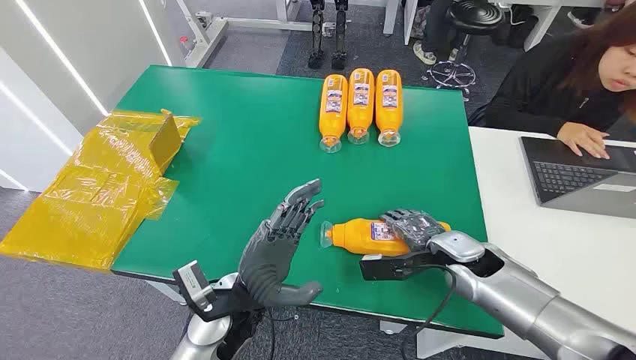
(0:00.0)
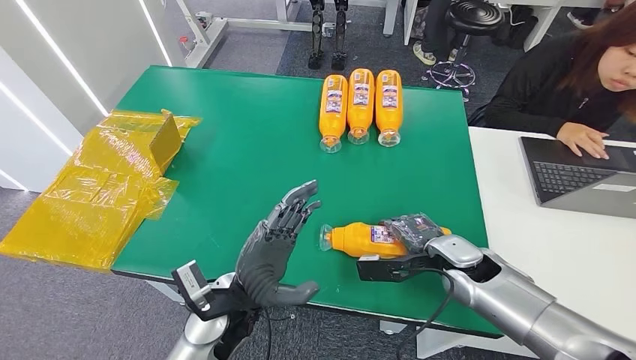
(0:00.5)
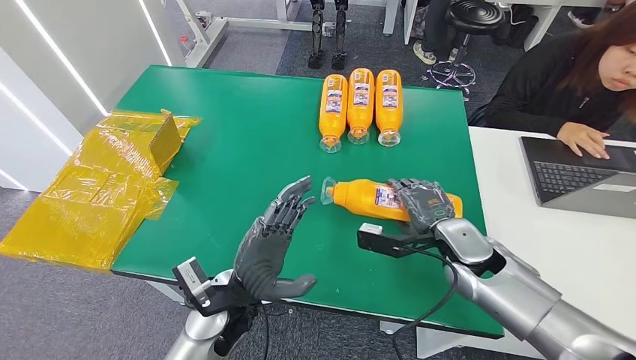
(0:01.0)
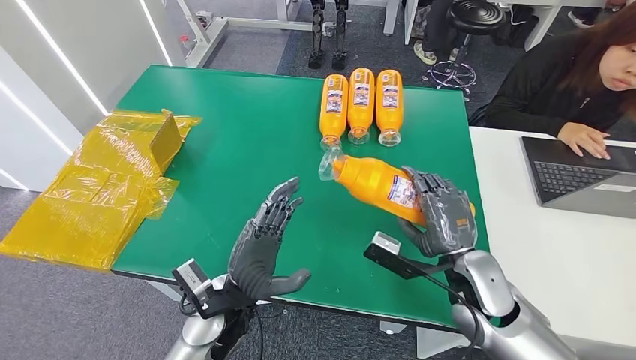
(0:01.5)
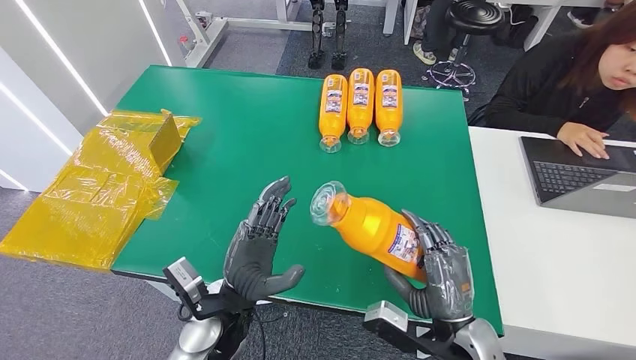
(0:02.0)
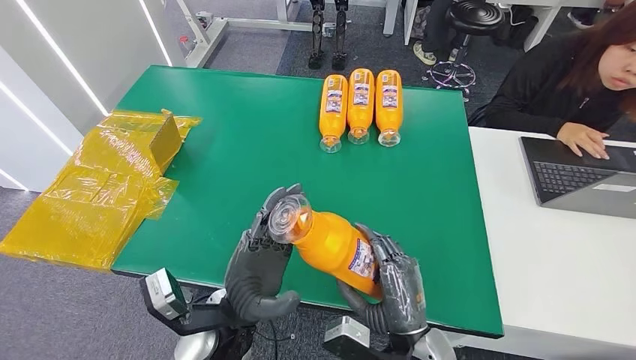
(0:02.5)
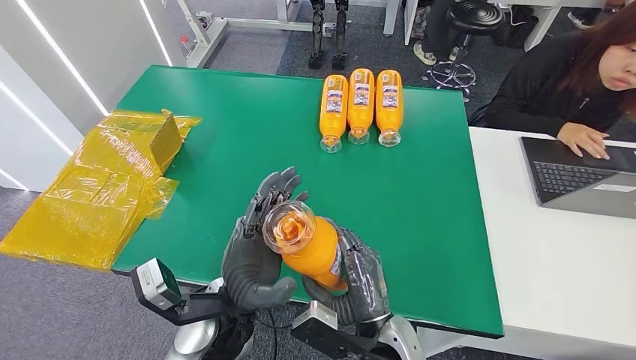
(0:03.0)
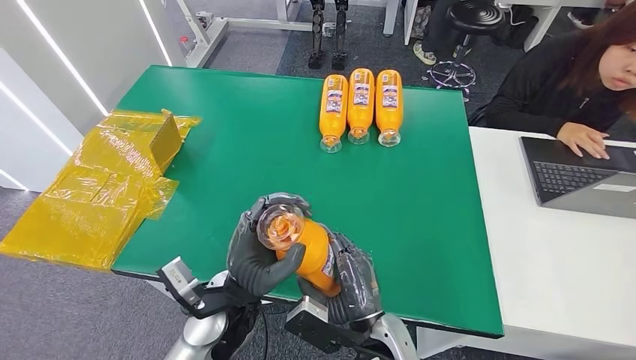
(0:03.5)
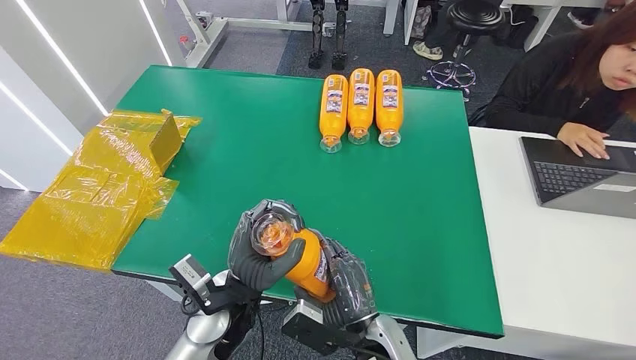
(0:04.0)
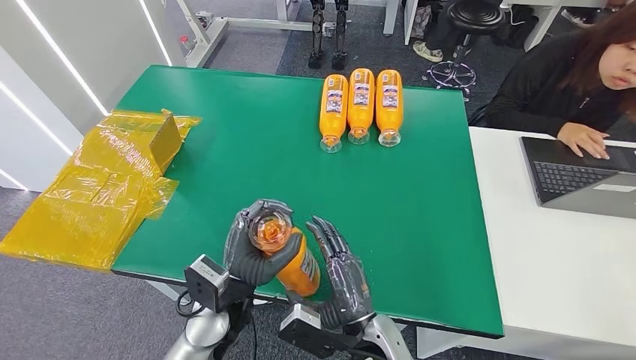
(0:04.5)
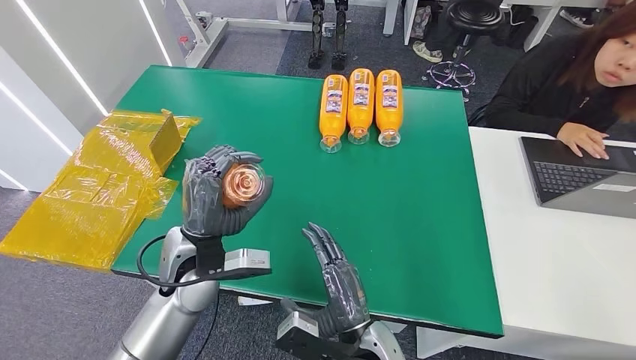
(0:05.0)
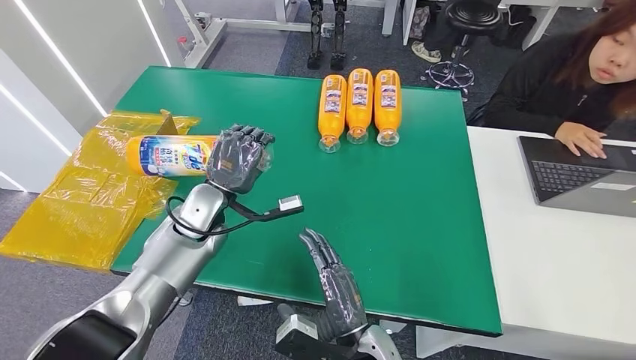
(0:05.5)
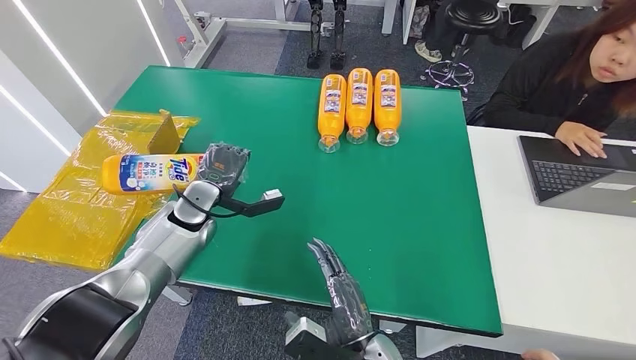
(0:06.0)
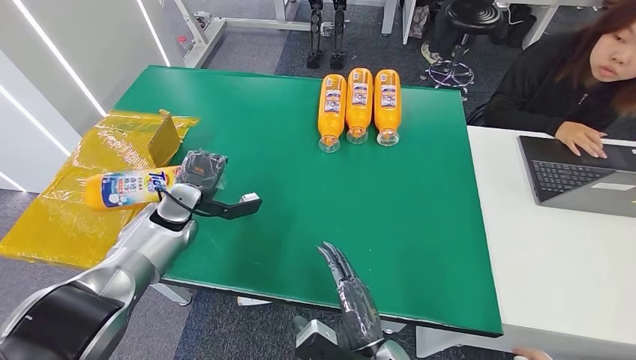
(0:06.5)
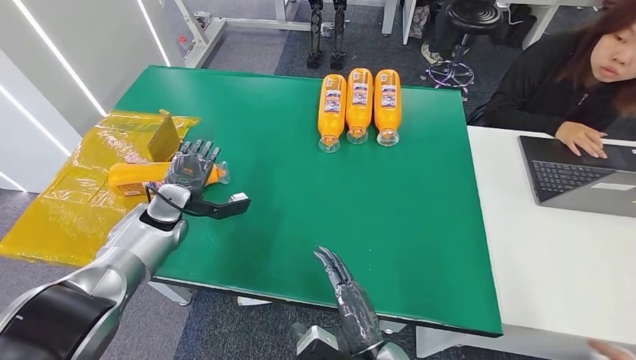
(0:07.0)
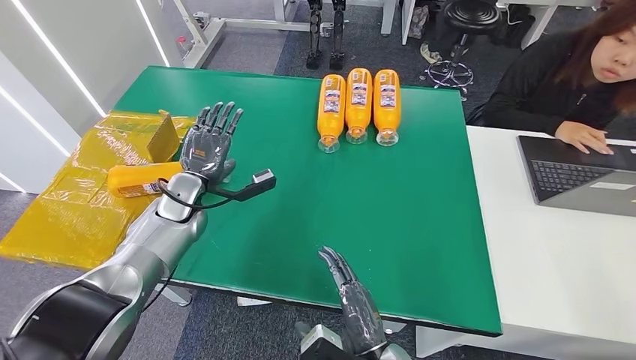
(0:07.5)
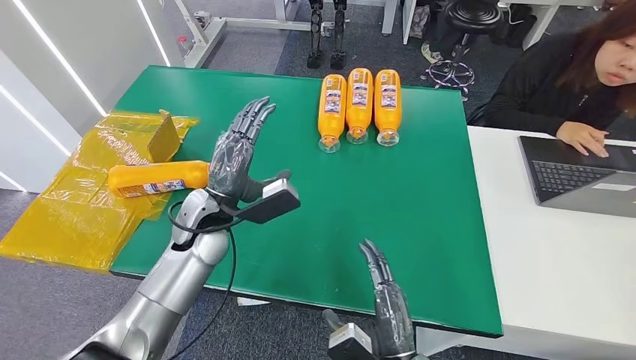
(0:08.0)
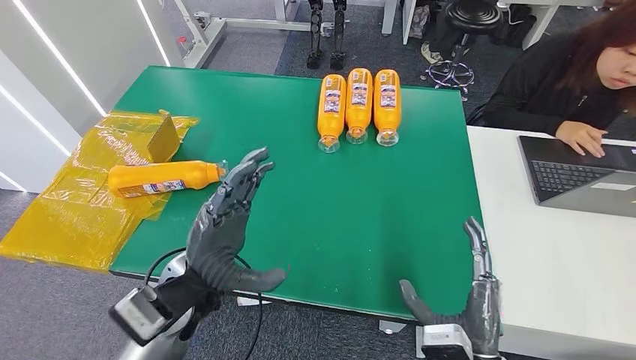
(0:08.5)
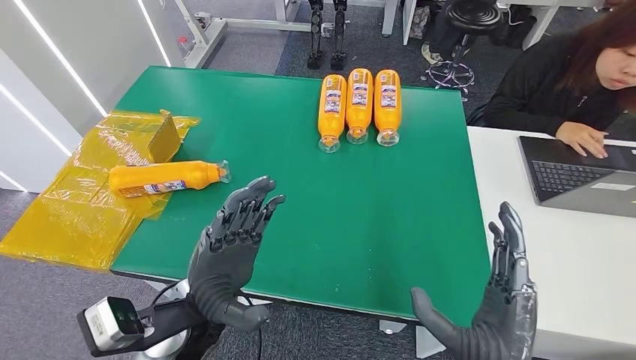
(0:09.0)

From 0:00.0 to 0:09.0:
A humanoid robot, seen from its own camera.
Step, from 0:00.0 to 0:02.0: Pick up the bottle from the table.
Step, from 0:03.0 to 0:09.0: Turn the bottle to the front side.
From 0:02.0 to 0:04.5: The right hand travels to the left by roughly 15 cm.
From 0:04.5 to 0:07.0: The left hand moves to the left and forward, approximately 25 cm.
From 0:07.0 to 0:09.0: The left hand goes roughly 25 cm to the right and backward. Meanwhile the right hand shifts roughly 15 cm to the right and upward.
